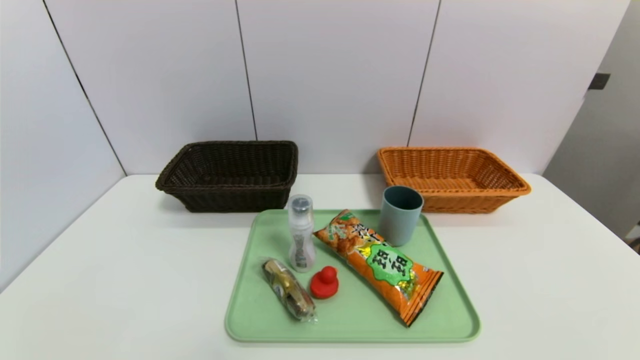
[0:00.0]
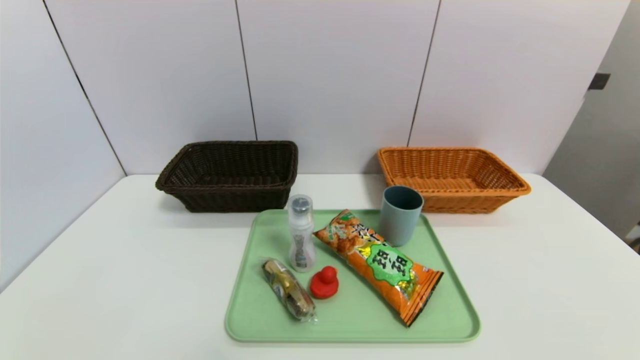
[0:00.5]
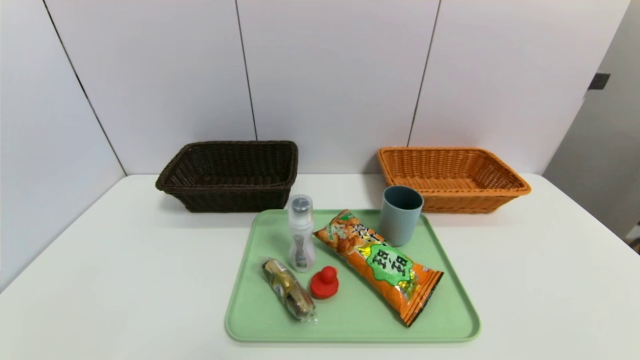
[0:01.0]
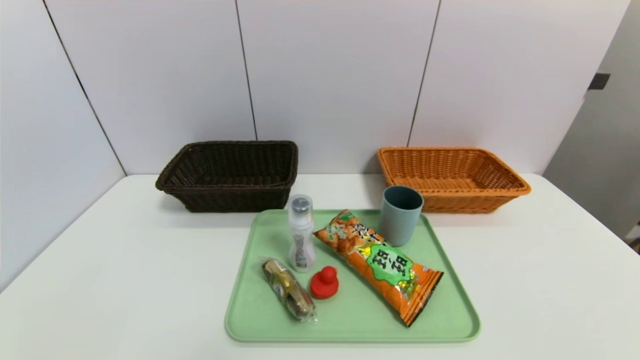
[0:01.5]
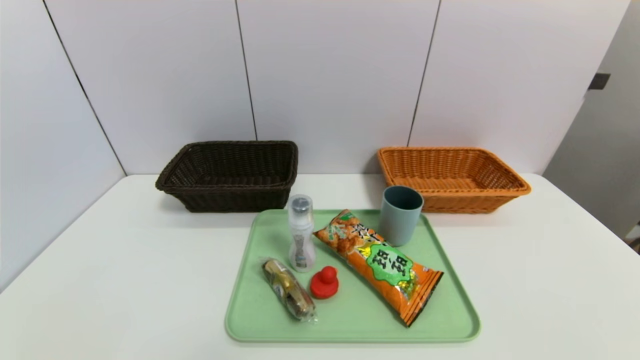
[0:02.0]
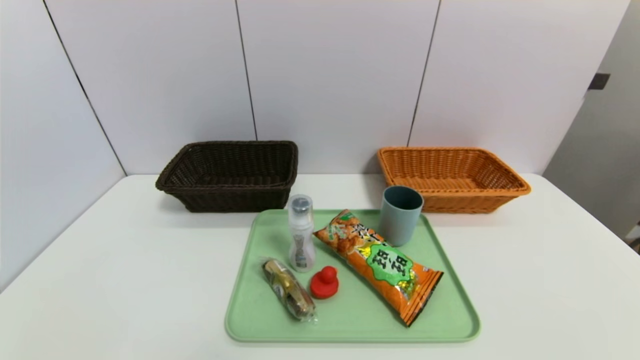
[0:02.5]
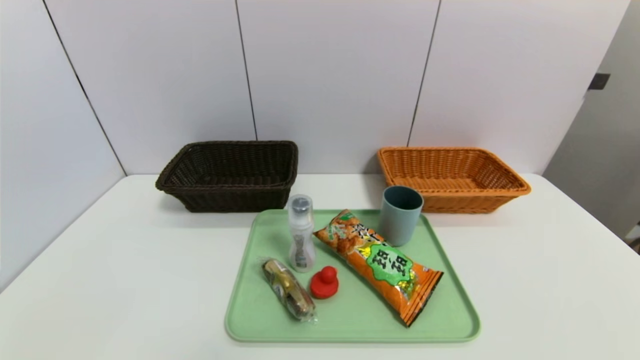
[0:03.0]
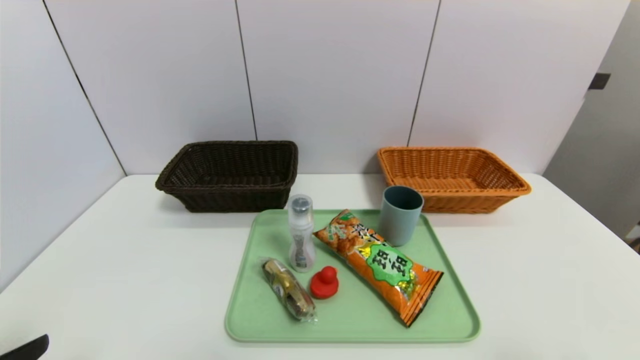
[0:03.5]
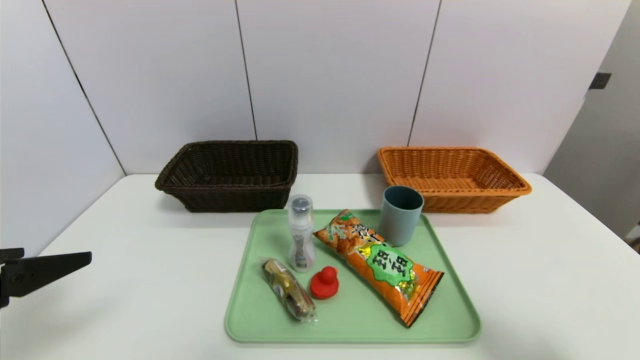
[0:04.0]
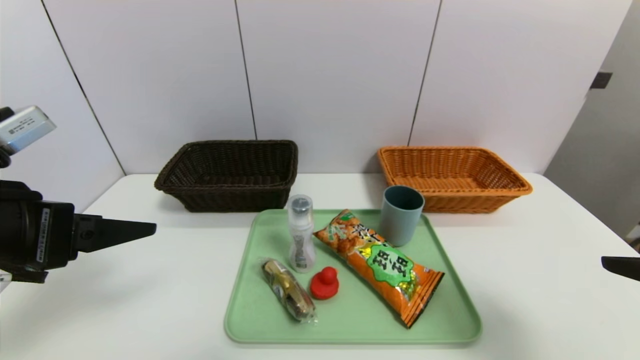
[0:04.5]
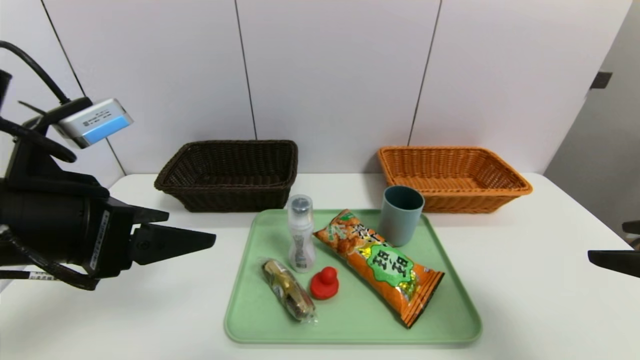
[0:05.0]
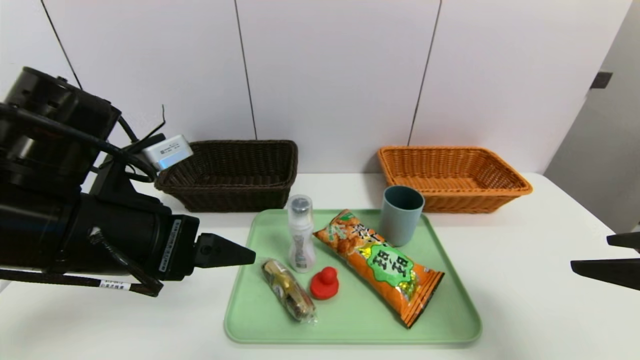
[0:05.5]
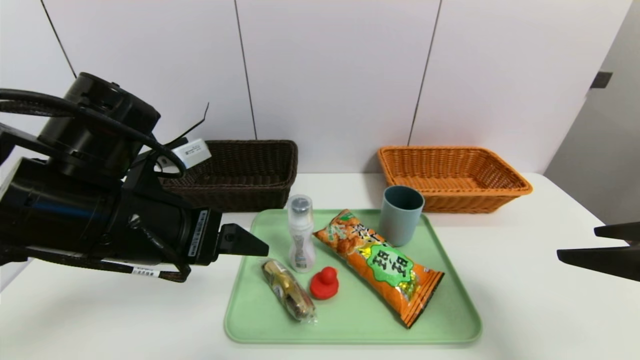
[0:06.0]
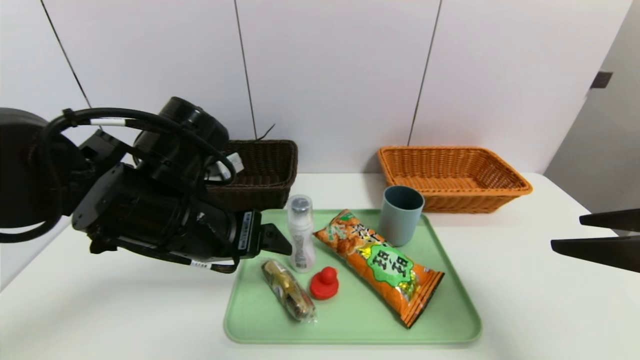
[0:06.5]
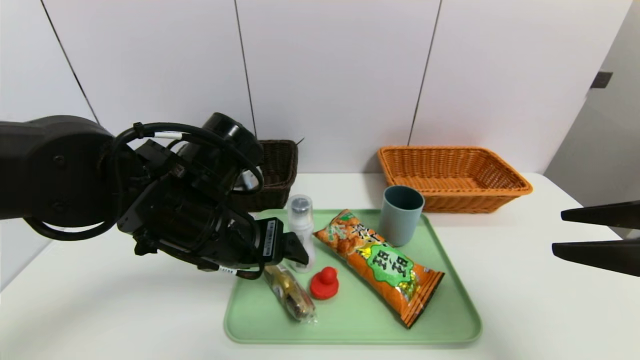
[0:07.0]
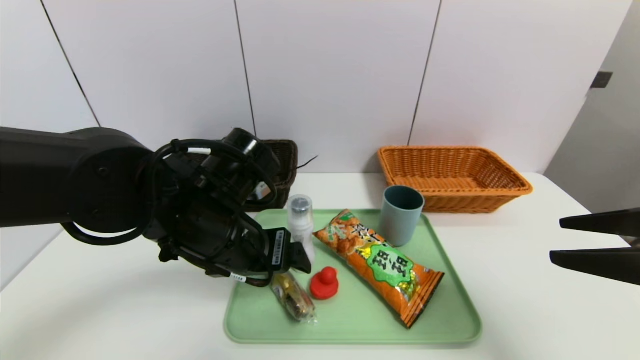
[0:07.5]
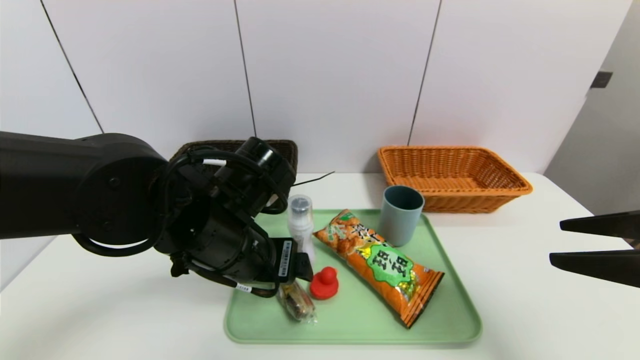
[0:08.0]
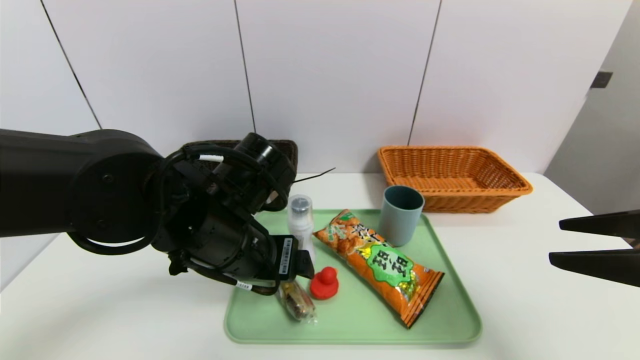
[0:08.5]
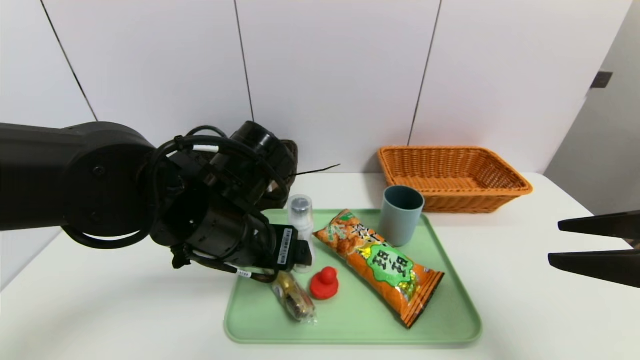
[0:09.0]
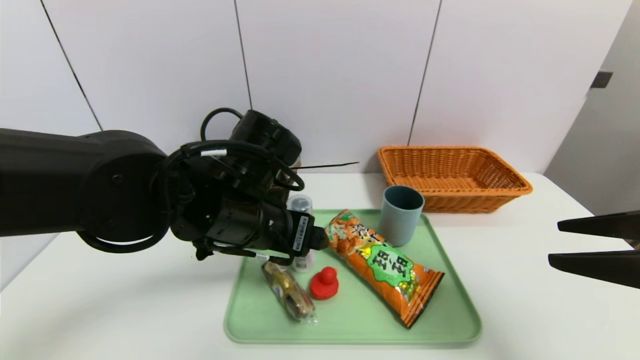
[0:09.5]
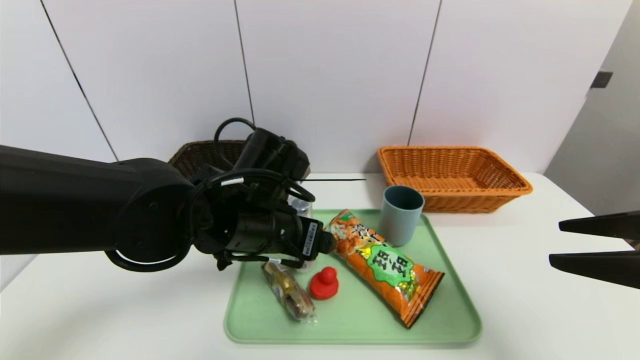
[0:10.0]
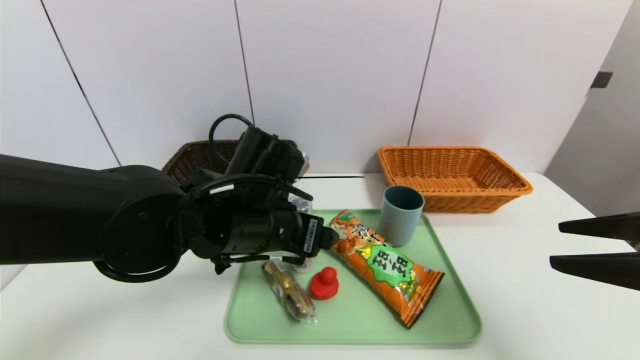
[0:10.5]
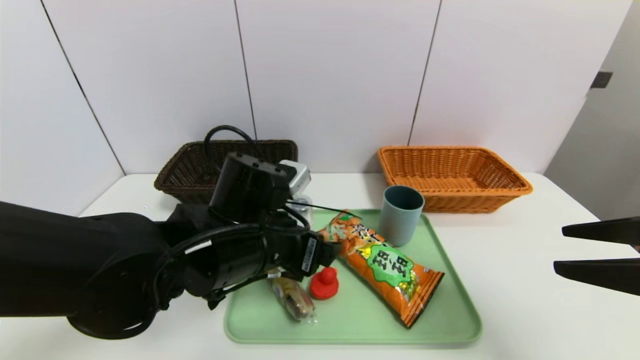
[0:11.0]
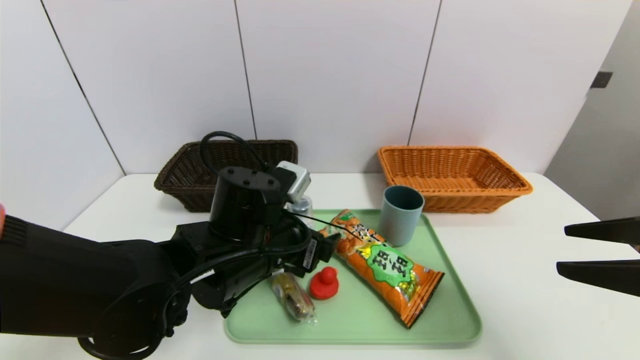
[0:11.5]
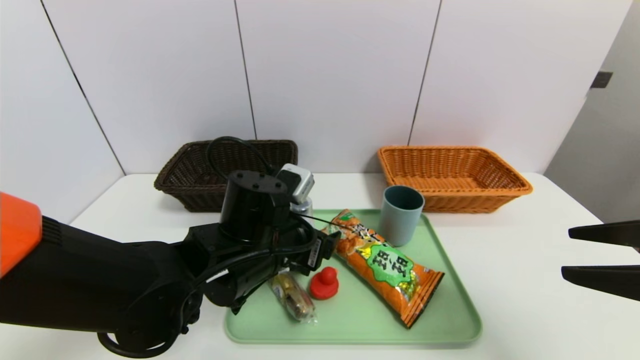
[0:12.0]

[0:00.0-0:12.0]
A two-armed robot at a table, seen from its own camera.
Task of the whole recording: place the food in the right basket with the right gripper, and place the non food items in the left basket with the left gripper.
0:00.0 to 0:02.0: The two grippers keep their place.
0:02.0 to 0:04.0: Both grippers move upward and forward, about 20 cm.
0:04.0 to 0:06.0: The right gripper heads forward, covering about 5 cm; the left gripper heads to the right and forward, covering some 15 cm.
0:06.0 to 0:08.0: The left gripper goes some 10 cm to the right and downward.

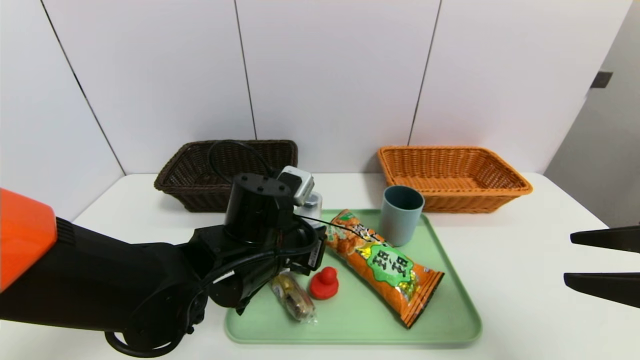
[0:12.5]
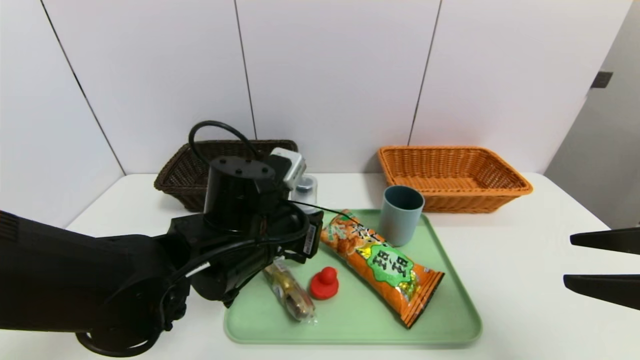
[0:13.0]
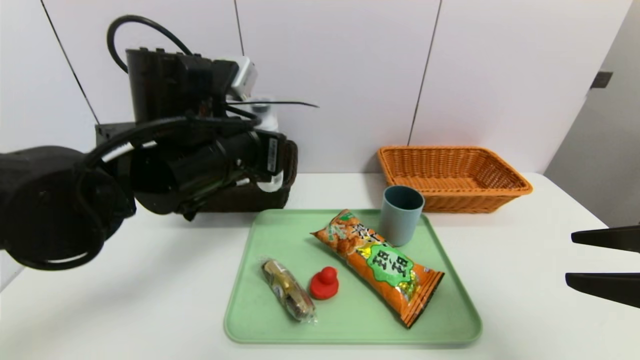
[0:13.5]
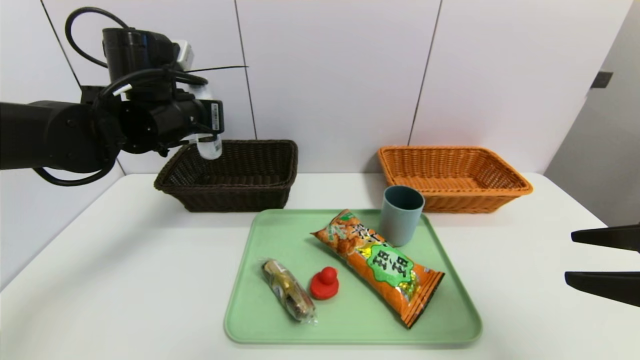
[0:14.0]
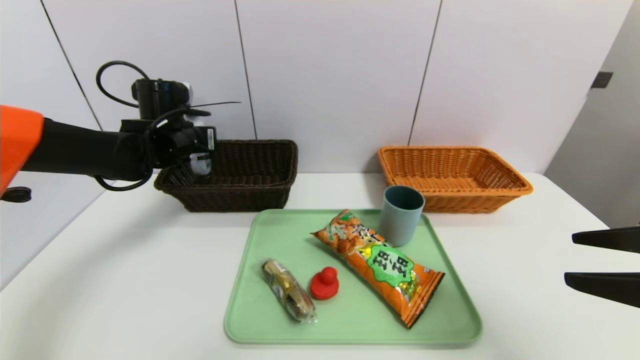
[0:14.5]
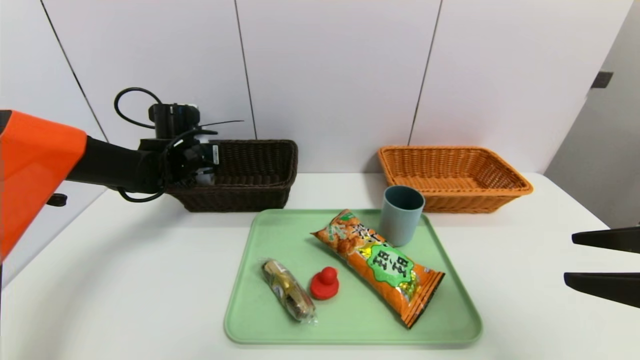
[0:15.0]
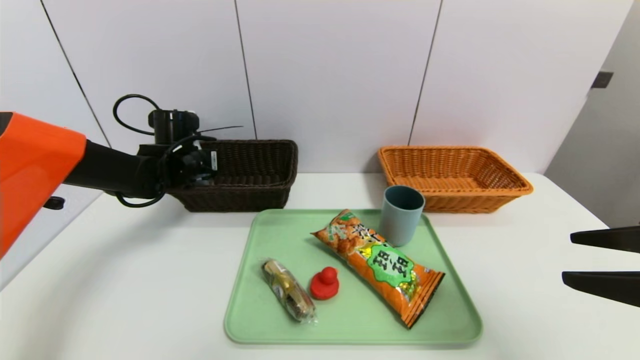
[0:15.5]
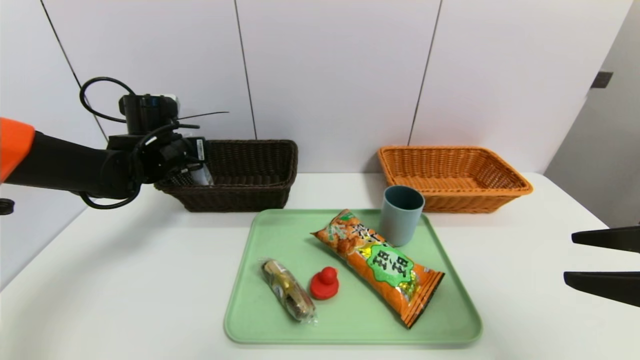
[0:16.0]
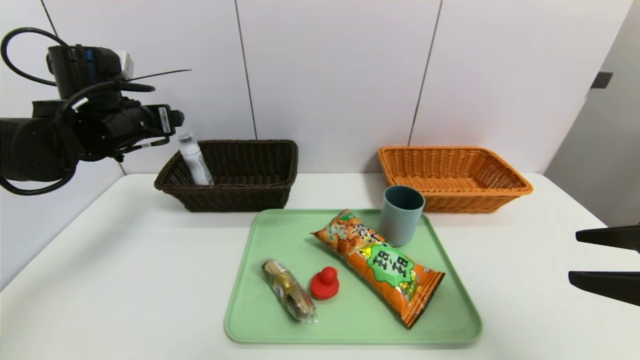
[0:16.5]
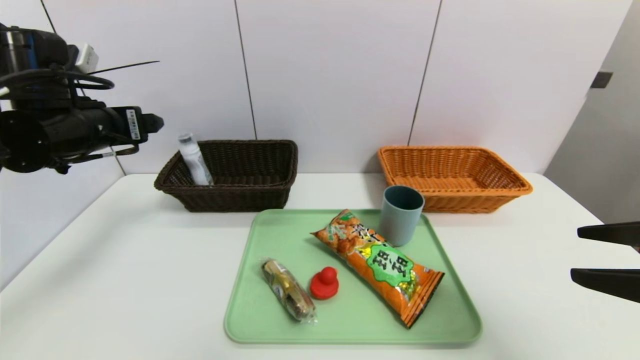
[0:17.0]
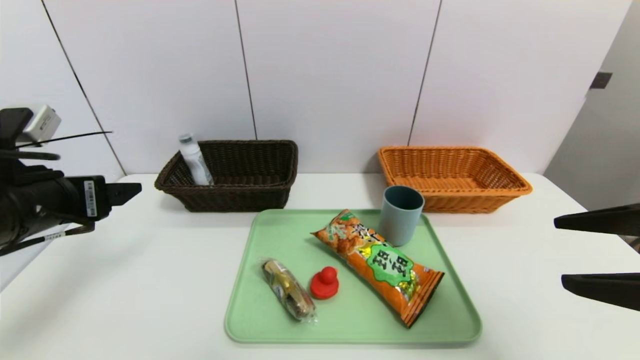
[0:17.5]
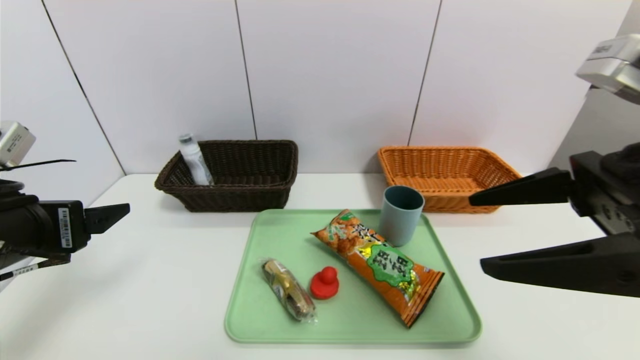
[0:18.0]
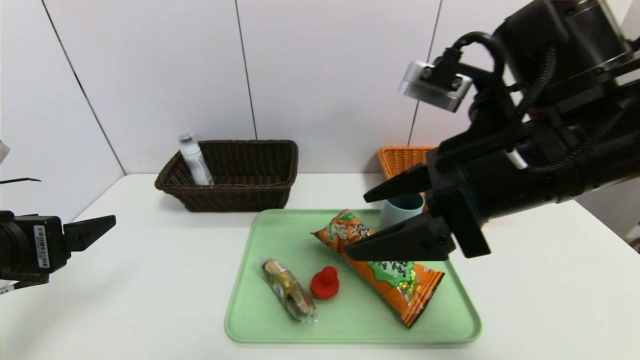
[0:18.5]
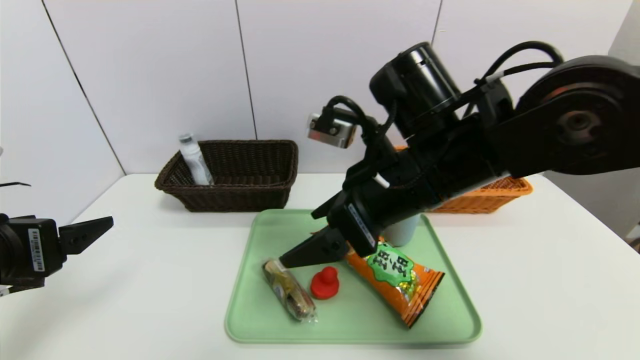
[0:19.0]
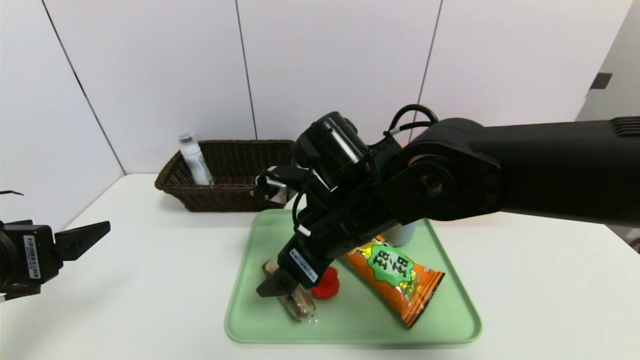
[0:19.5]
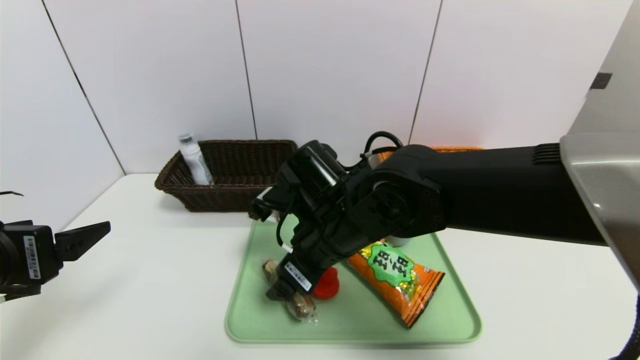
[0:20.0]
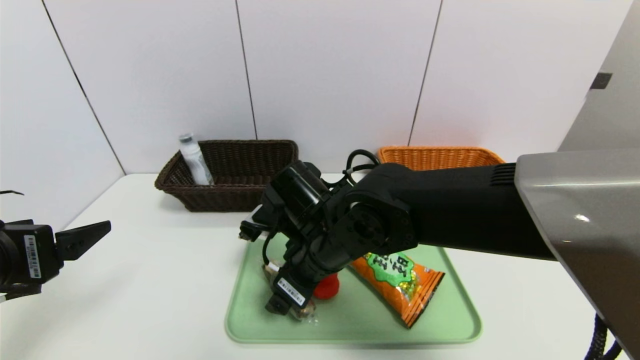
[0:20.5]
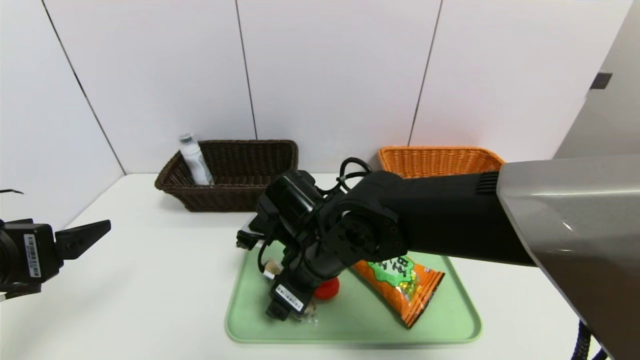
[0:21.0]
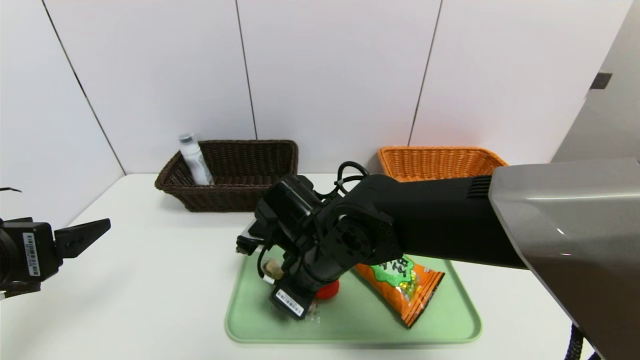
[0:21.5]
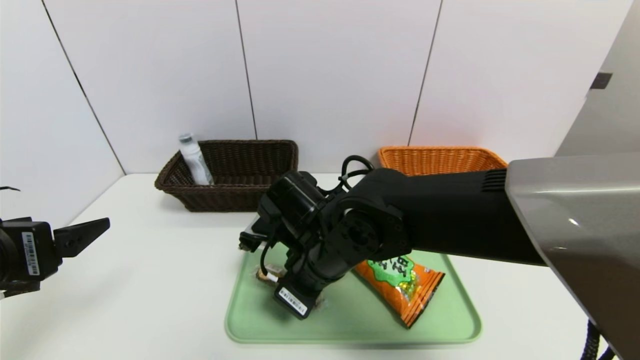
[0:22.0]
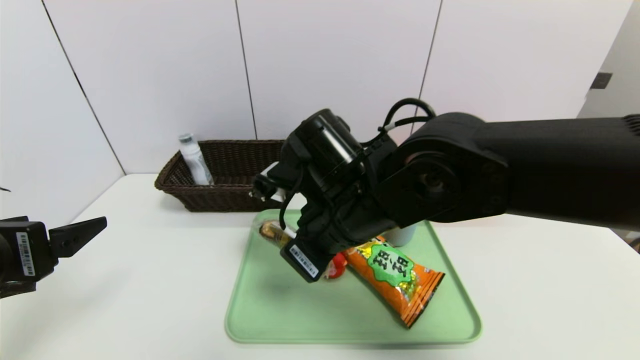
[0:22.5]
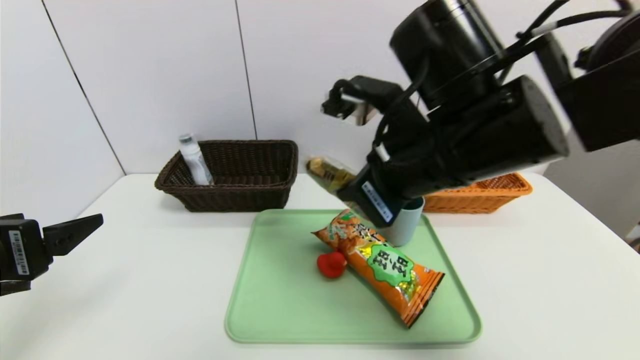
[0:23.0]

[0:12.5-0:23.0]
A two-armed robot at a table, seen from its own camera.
Task of the whole recording: place the food in the right basket with the right gripper, and place the non food items in the left basket with the left gripper.
Step, 0:12.5 to 0:16.0: Grasp the washing liquid and put it in the left basket.
0:12.5 to 0:14.5: The left gripper moves forward, to the left and upward, about 25 cm.
0:14.5 to 0:16.5: The left gripper goes about 5 cm backward, and opens.
0:16.5 to 0:19.0: The right gripper travels to the left and forward by some 25 cm; the left gripper shifts roughly 20 cm backward.
0:19.0 to 0:21.0: The right gripper heads downward and to the left, covering about 15 cm.
0:21.0 to 0:23.0: The right gripper heads upward and to the right, covering roughly 20 cm, and closes.
